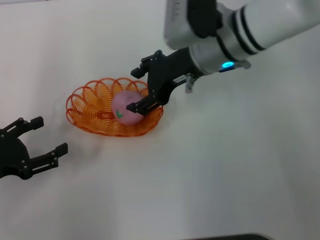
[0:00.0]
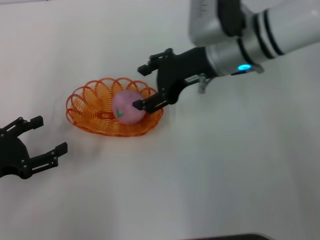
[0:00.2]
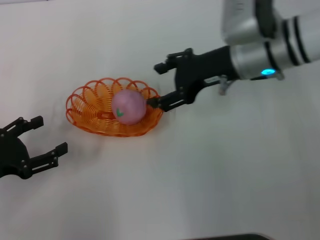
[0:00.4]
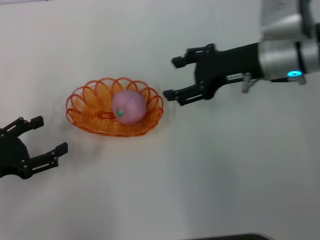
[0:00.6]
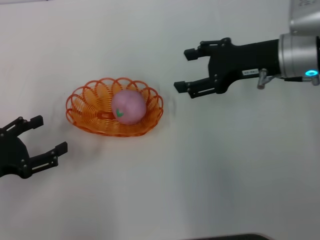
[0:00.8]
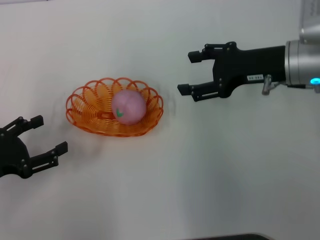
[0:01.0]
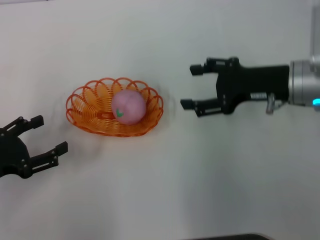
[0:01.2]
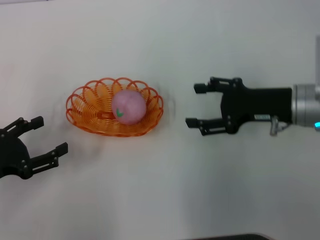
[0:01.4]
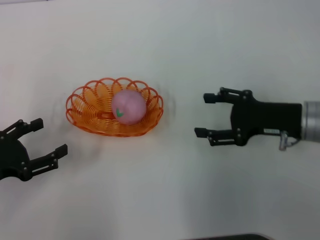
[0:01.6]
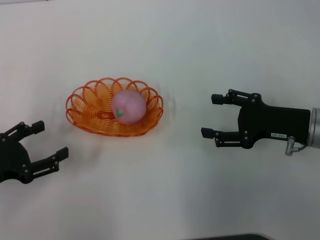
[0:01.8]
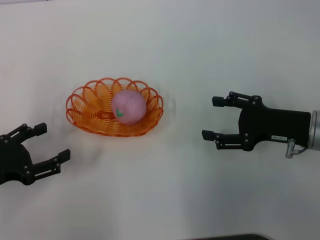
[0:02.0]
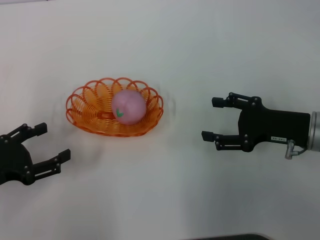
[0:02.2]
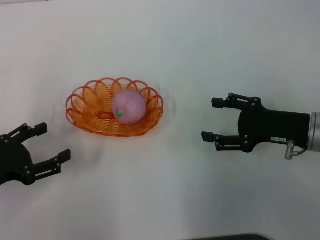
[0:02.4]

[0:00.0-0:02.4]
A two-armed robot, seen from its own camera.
0:00.0 to 0:01.2: The right gripper travels to the right and backward by about 15 cm.
0:01.2 to 0:02.4: The right gripper is displaced downward and backward by roughly 10 cm.
